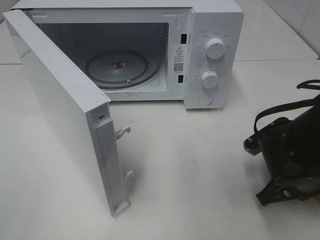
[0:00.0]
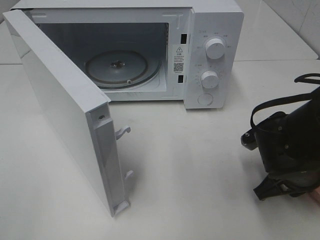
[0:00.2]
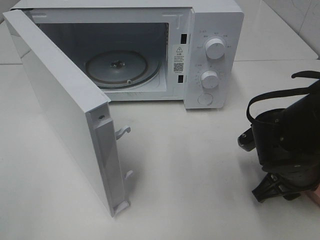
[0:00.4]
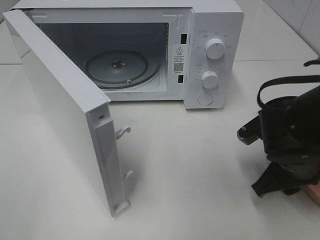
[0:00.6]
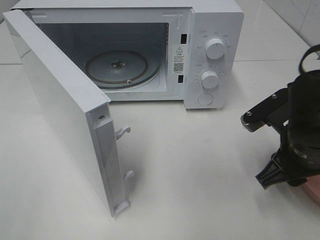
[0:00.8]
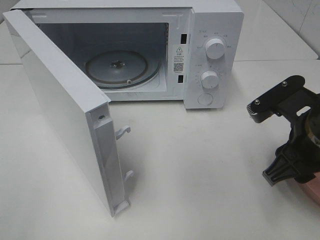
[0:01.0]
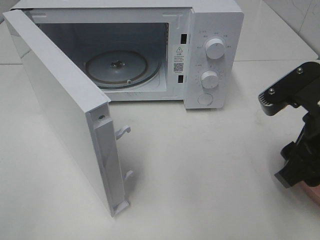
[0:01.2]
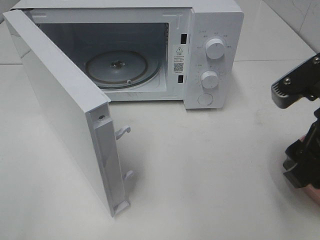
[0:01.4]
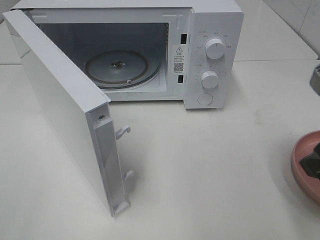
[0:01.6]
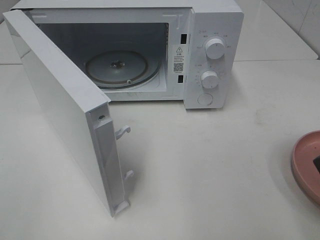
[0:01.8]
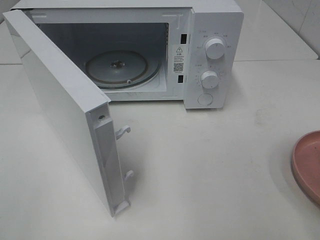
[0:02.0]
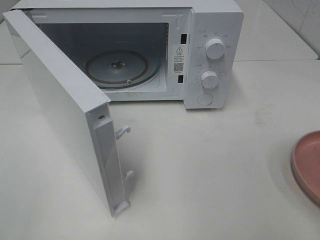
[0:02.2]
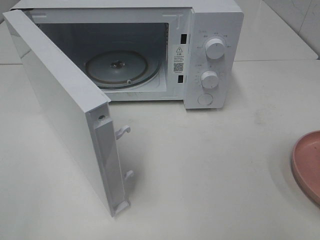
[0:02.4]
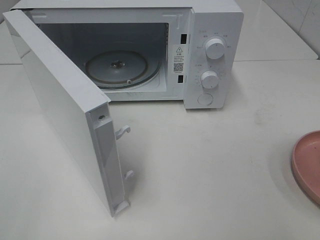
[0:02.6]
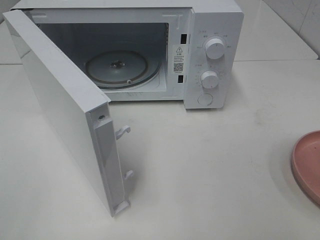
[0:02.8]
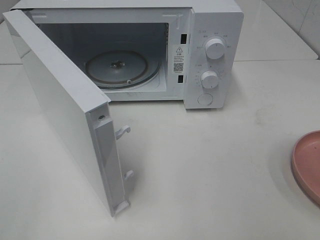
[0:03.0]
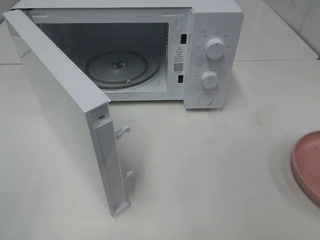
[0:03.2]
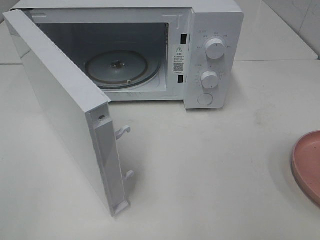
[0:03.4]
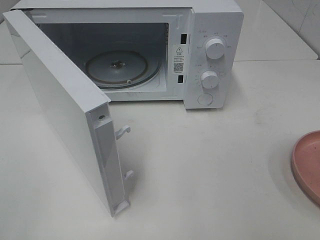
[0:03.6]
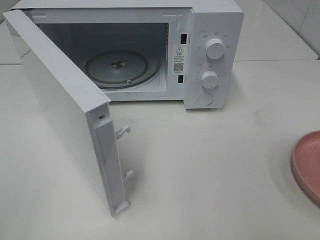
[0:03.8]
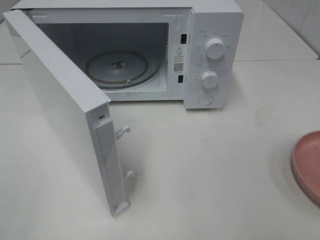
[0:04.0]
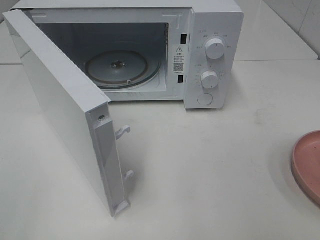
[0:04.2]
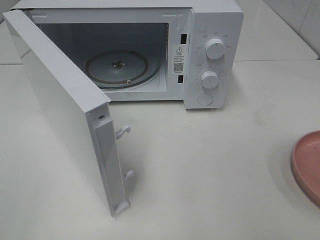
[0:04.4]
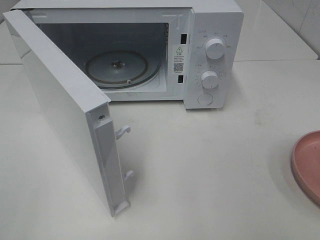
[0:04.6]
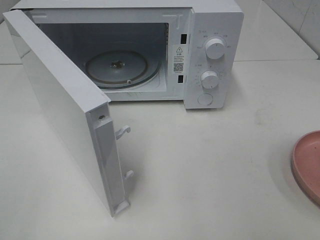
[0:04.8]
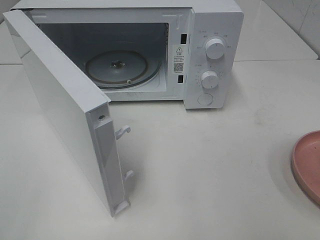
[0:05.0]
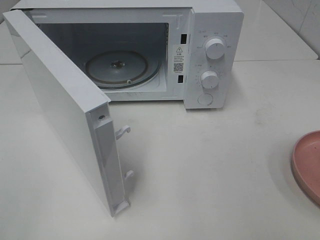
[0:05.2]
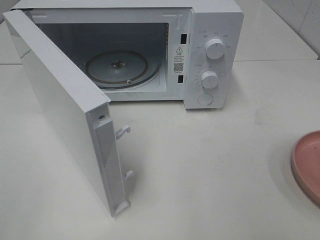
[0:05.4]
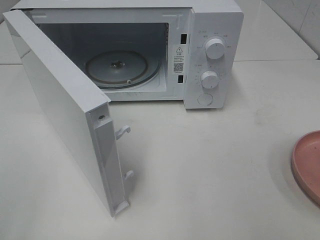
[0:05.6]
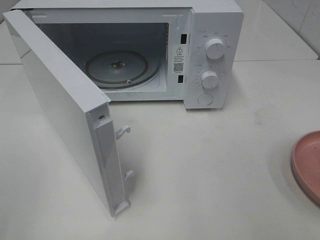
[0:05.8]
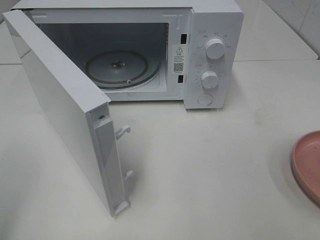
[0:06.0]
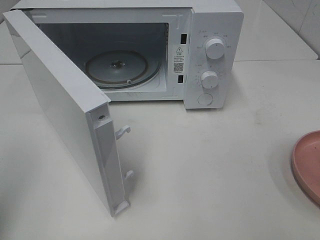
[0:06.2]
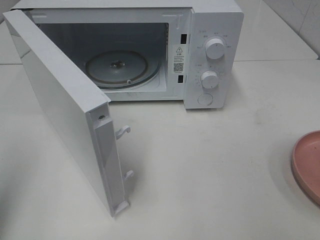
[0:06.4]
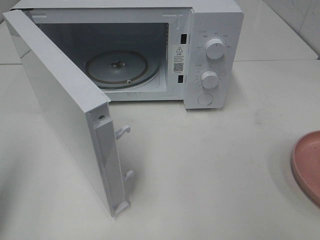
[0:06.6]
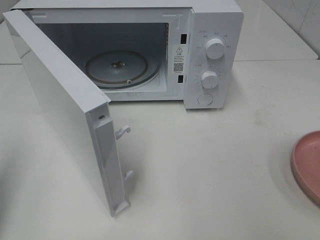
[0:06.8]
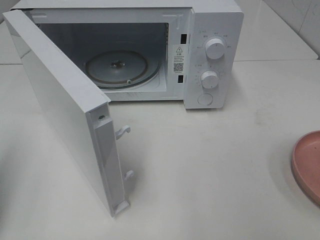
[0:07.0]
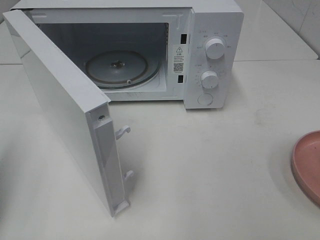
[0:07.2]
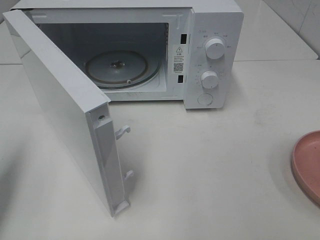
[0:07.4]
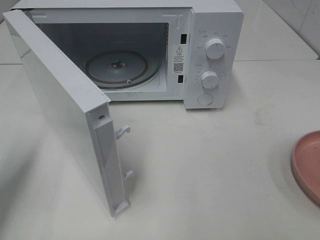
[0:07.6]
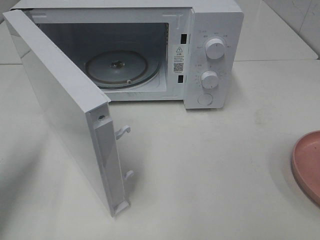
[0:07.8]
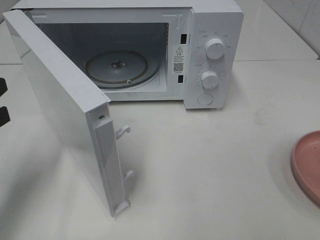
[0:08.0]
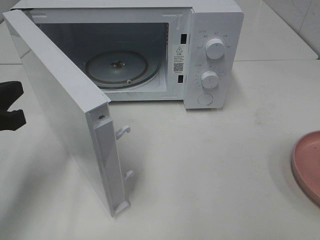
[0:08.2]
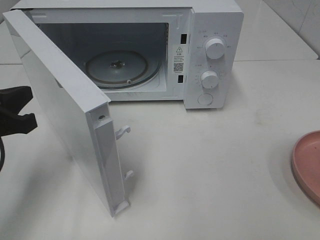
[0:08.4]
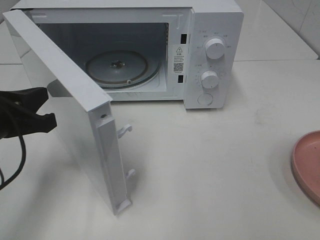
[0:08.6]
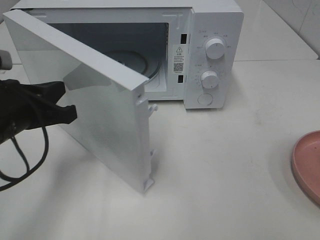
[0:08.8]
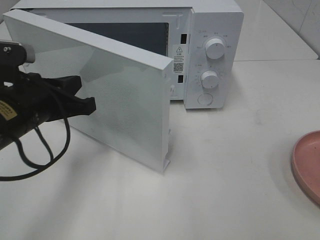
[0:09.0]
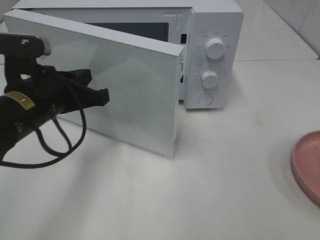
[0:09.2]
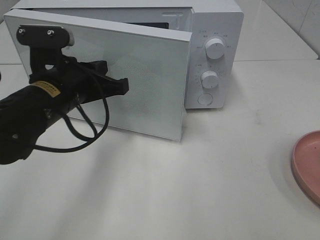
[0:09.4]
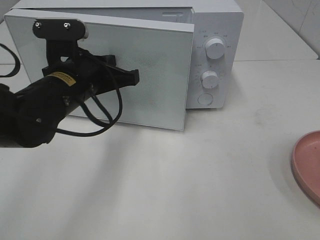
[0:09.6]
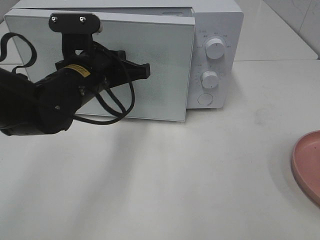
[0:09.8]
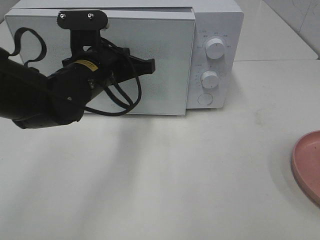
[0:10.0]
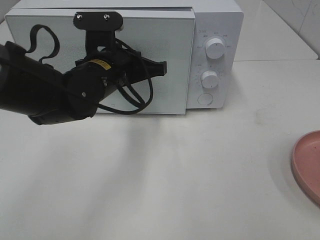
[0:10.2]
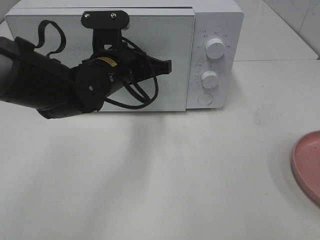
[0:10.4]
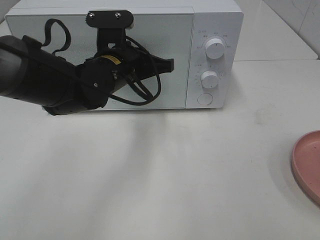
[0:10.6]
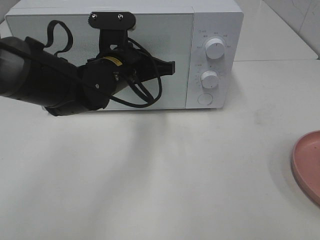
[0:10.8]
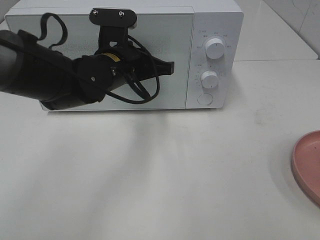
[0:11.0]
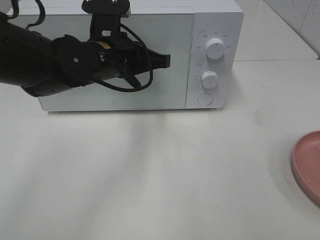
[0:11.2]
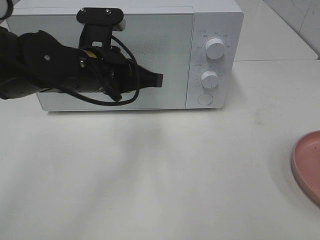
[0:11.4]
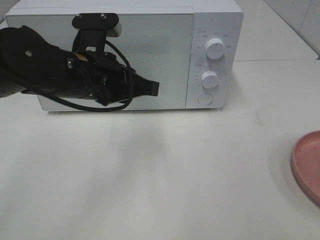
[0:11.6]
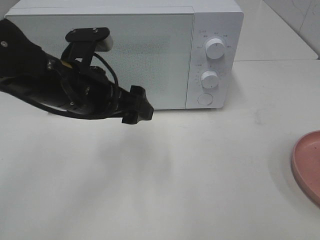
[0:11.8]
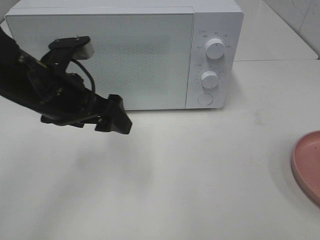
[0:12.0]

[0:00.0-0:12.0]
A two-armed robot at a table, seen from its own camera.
Task of the whole recording: Heat the burger.
Step, 0:00.4 to 0:11.2: Left hand: close the microwave door.
0:00.0 to 0:01.6: The right gripper is displaced upward and backward by roughly 20 cm, and opens.
0:01.6 to 0:03.0: The right gripper travels backward and to the right by approximately 15 cm.
0:06.0 to 0:07.6: The left gripper travels forward and downward by about 15 cm, and closes its fingers.
0:07.6 to 0:09.0: The left gripper is displaced to the right and forward by about 15 cm.
0:09.0 to 0:10.4: The left gripper heads to the right and forward, covering about 15 cm.
0:10.4 to 0:12.0: The left gripper heads to the left and backward, covering about 10 cm, and opens up.

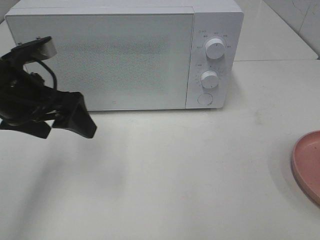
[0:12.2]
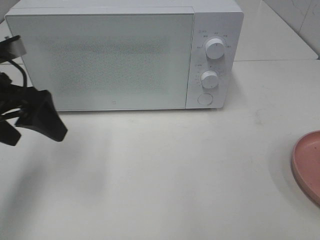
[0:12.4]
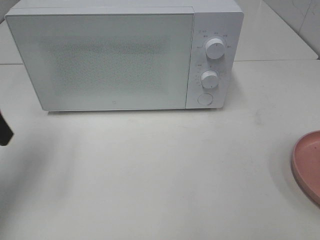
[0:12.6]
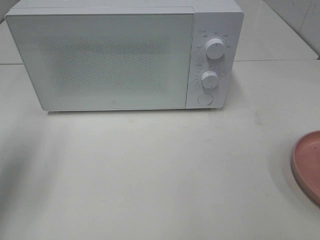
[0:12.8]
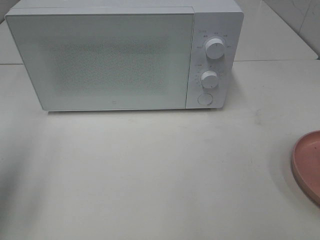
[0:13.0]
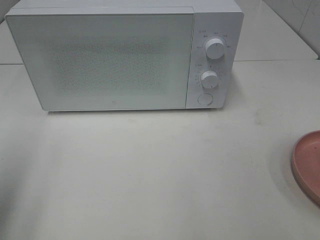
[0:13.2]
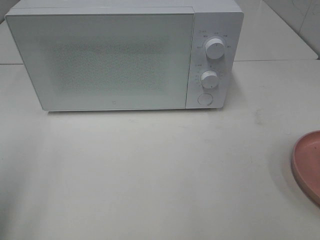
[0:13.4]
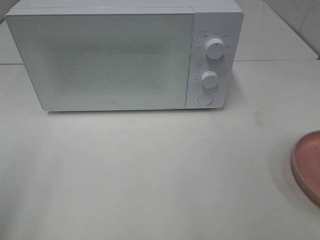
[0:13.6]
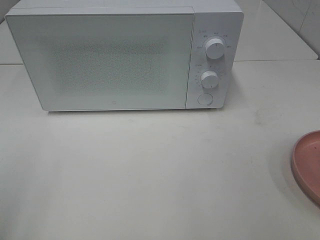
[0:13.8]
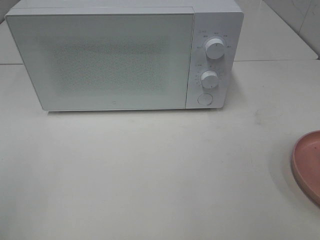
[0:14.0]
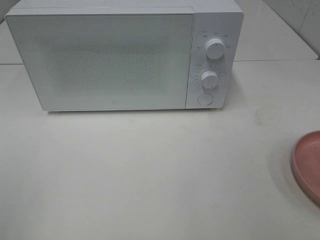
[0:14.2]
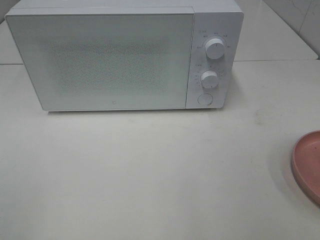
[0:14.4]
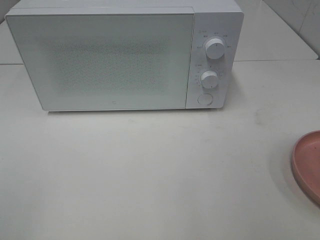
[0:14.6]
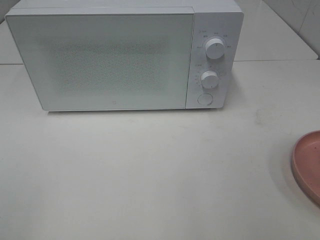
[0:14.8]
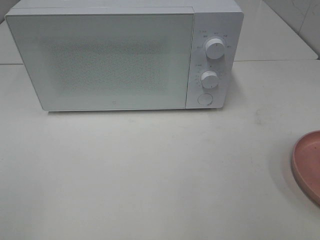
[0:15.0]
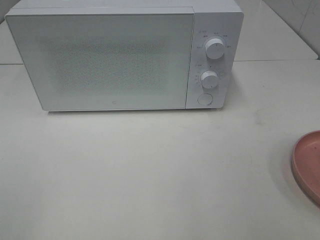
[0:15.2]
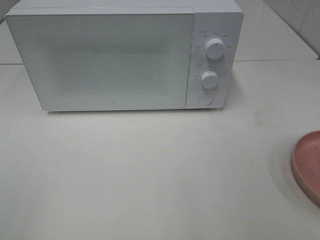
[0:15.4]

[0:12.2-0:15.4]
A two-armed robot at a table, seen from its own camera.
Task of the whole recording: Heat the burger.
0:12.2 to 0:13.8: The left gripper goes about 25 cm backward and to the left.

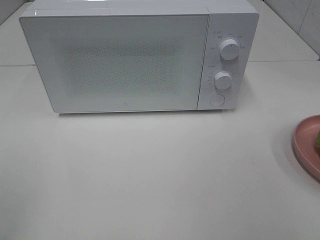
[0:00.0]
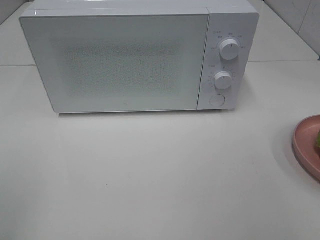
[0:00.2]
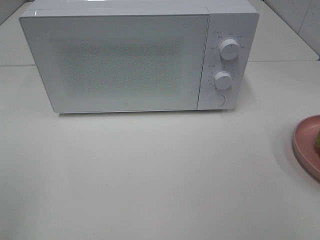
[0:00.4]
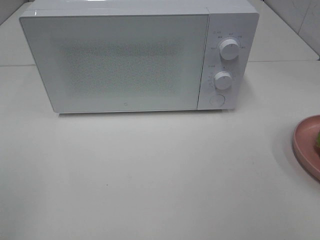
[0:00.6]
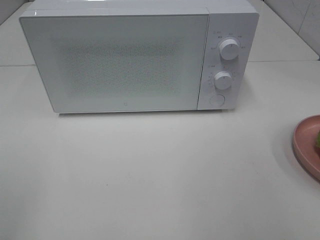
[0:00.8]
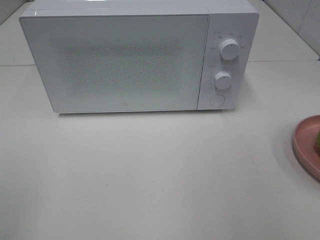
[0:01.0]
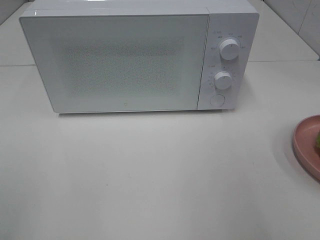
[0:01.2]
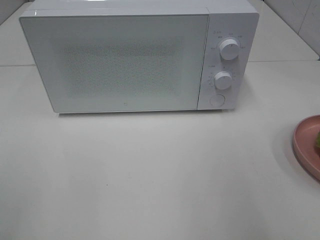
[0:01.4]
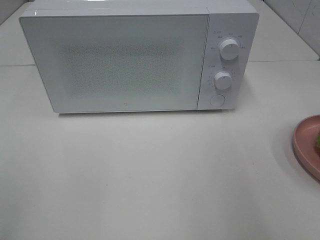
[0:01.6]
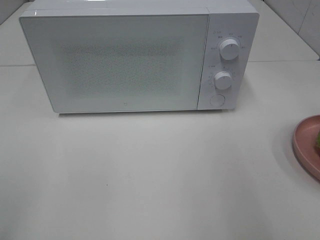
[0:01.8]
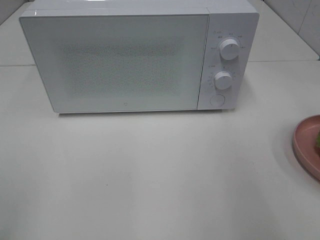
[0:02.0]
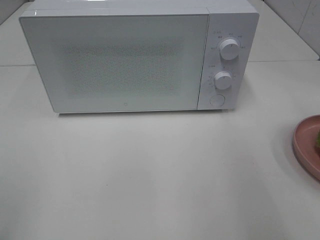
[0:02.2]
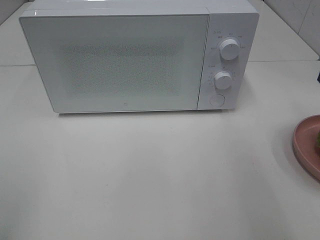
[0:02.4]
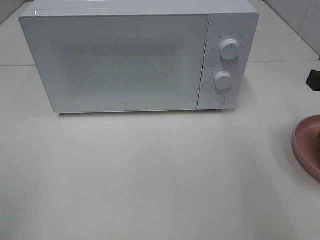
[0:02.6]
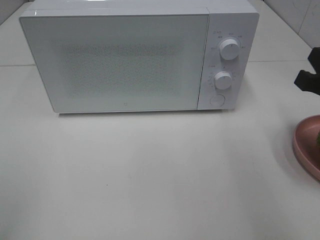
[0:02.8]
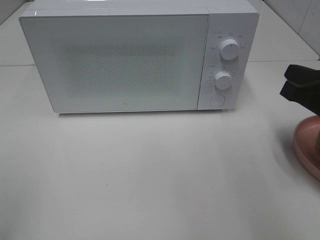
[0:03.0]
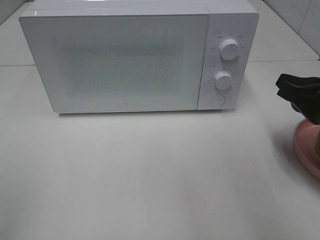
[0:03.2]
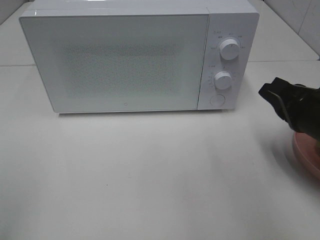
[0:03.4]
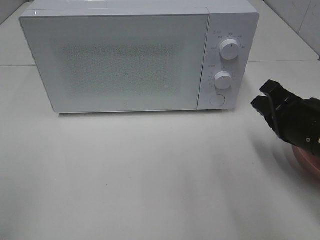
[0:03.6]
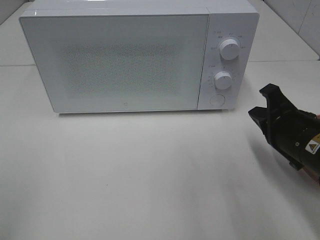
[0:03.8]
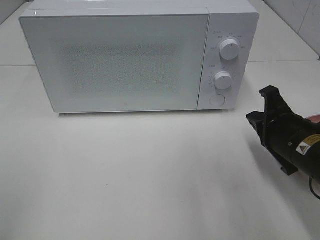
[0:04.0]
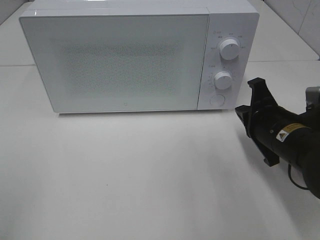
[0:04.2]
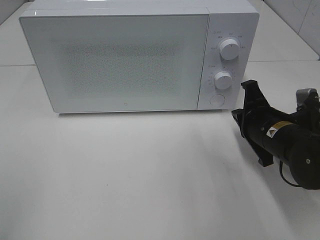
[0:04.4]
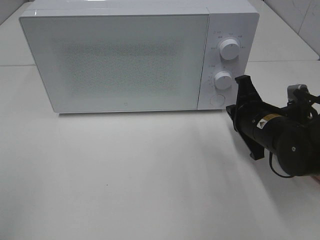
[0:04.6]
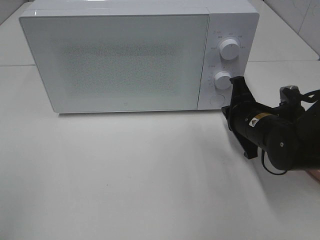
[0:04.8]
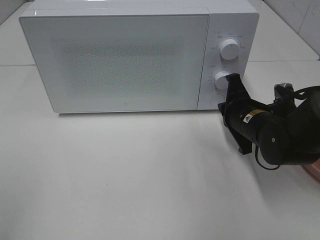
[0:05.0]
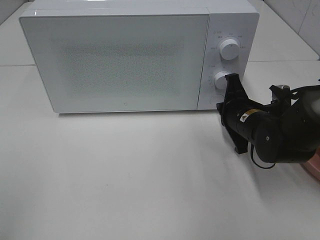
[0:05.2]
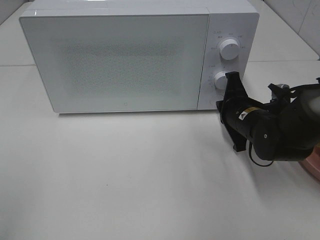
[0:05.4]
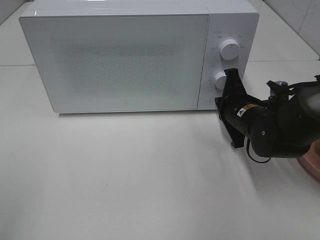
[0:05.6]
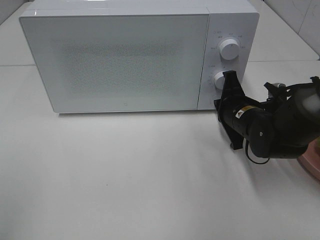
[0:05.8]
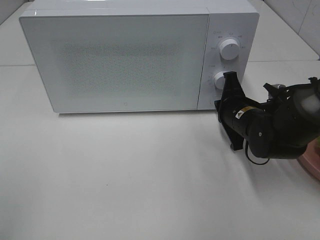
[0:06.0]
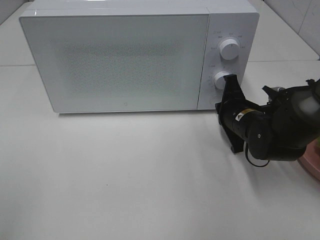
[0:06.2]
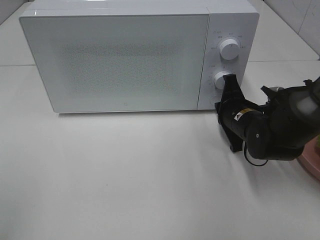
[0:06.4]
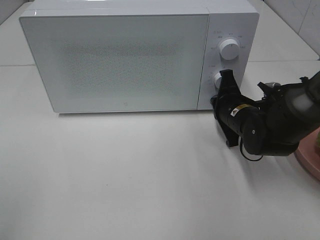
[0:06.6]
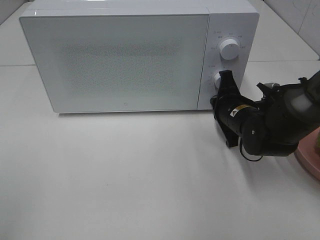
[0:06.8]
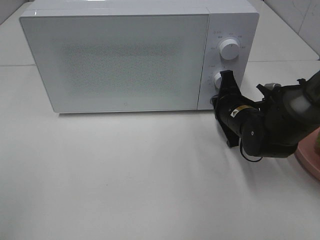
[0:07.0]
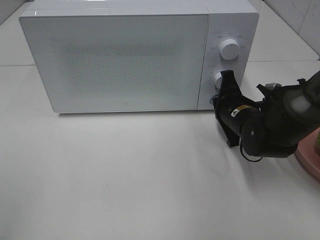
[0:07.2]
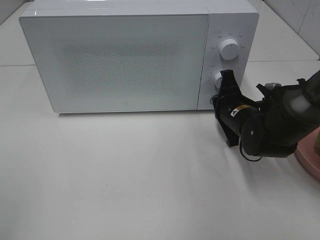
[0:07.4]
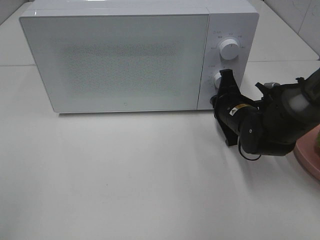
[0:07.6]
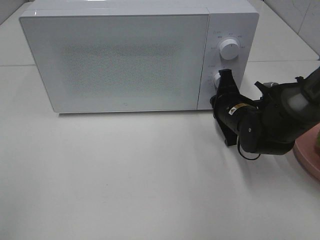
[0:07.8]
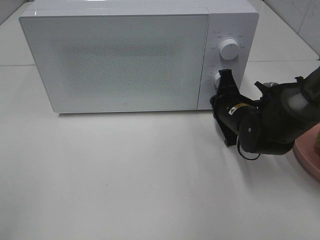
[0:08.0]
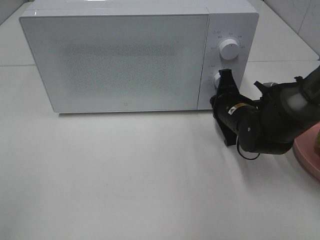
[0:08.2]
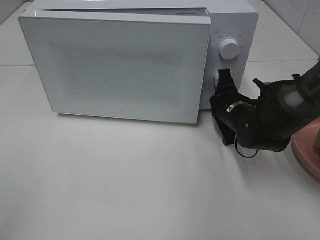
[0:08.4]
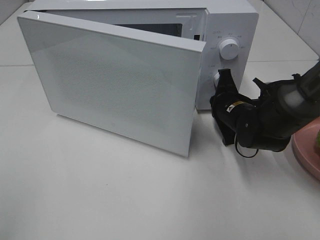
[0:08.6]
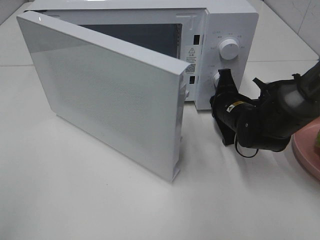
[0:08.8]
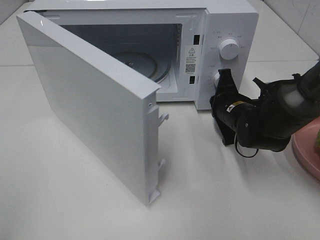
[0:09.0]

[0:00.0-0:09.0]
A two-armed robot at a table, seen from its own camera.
Task of the whole recording: Heat the burger.
0:01.6 to 0:03.0: The right gripper is displaced downward and forward by about 15 cm.
0:03.0 to 0:04.4: The right gripper travels downward, to the left and forward by approximately 10 cm.
0:04.4 to 0:06.0: The right gripper goes approximately 5 cm forward.
0:06.0 to 0:07.6: The grippers move only a little.
